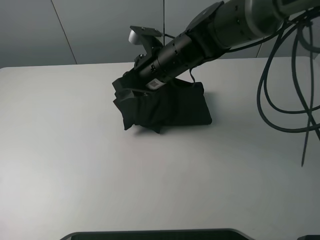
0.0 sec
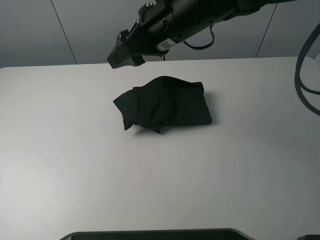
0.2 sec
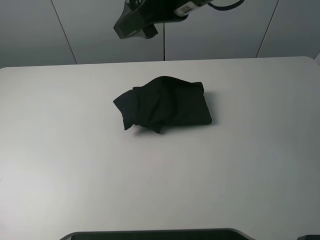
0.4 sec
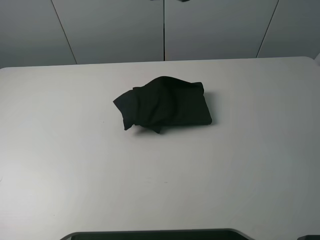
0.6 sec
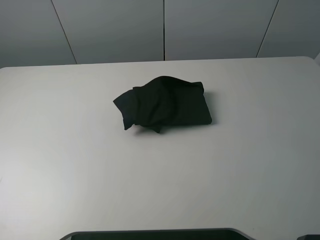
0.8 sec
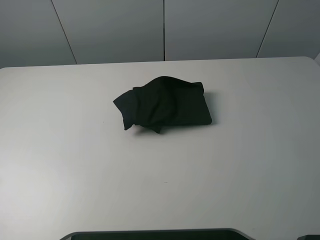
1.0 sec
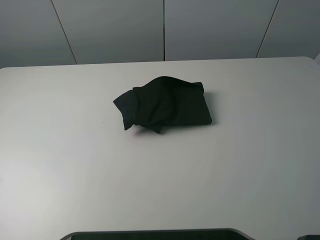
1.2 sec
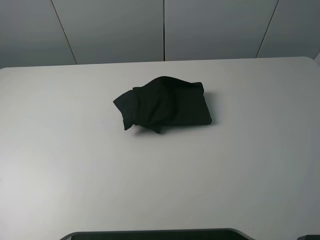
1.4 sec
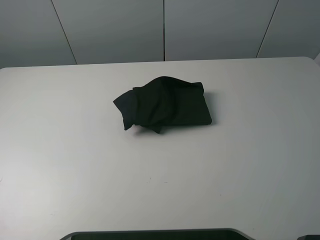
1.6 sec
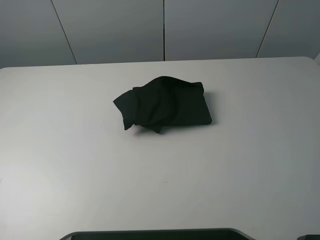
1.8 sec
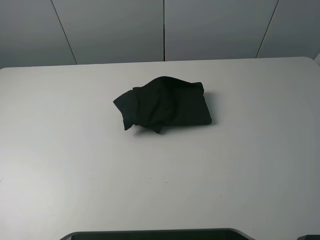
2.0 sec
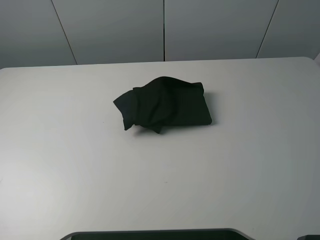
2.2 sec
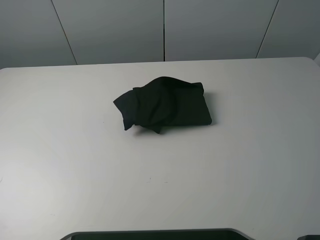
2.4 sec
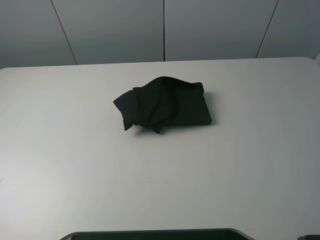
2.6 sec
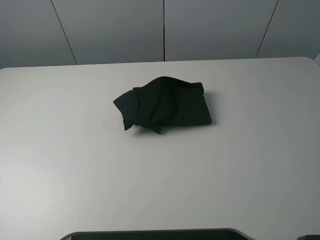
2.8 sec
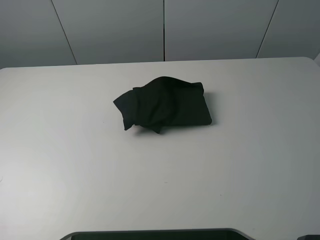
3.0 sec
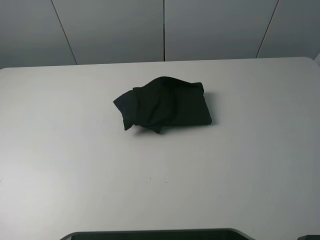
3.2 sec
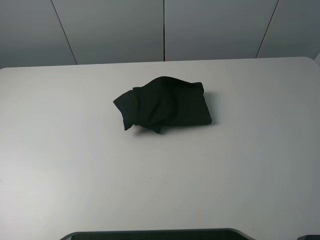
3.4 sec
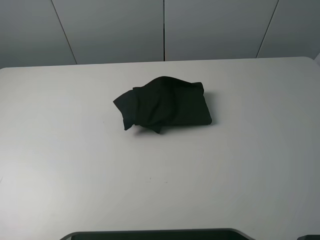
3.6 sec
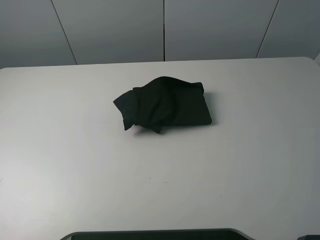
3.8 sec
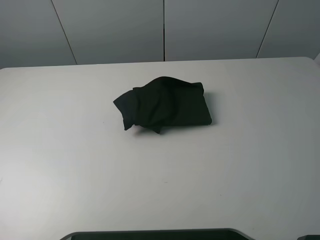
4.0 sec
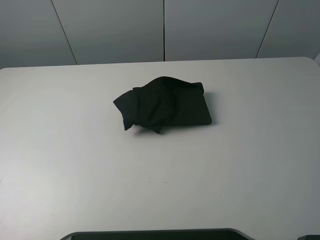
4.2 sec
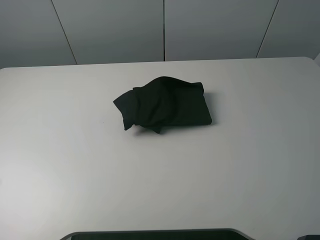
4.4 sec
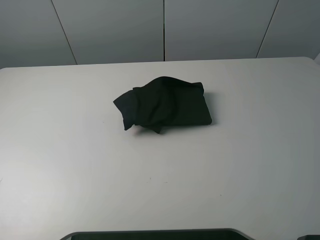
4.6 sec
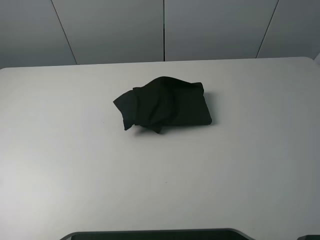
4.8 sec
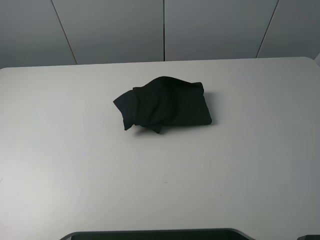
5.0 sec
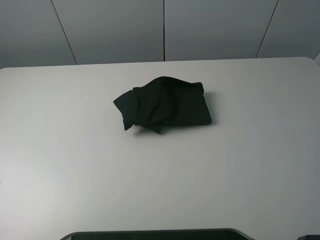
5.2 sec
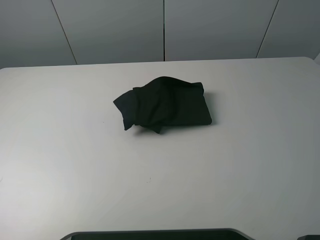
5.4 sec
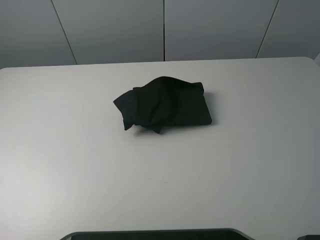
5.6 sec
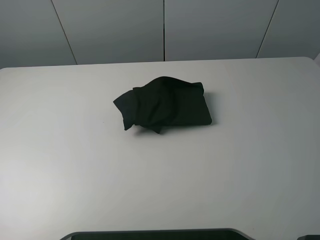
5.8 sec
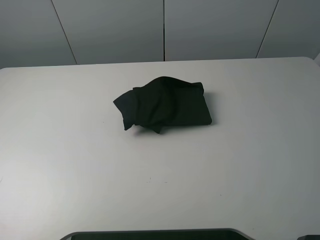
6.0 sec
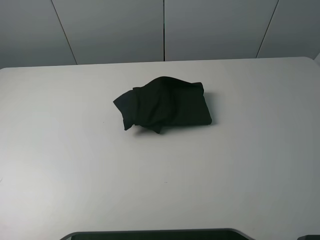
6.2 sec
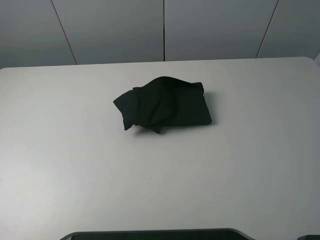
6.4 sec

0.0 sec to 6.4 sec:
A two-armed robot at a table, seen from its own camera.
Task of the whole recording: fold the clothes on the table.
0.0 sec to 1.6 sec: The left gripper moves backward and to the left, about 30 cm. The right gripper goes roughly 50 cm to the right, upward and backward, and opens up.
4.8 sec to 6.4 sec: The two grippers keep their place.
